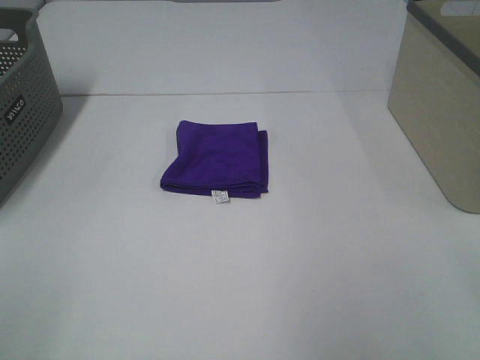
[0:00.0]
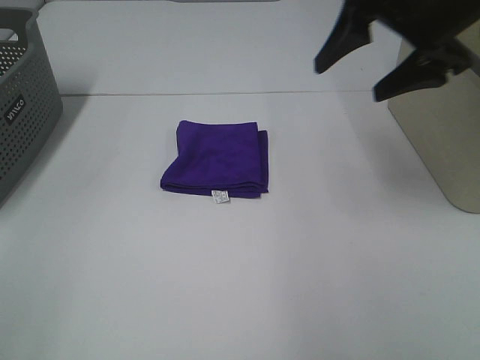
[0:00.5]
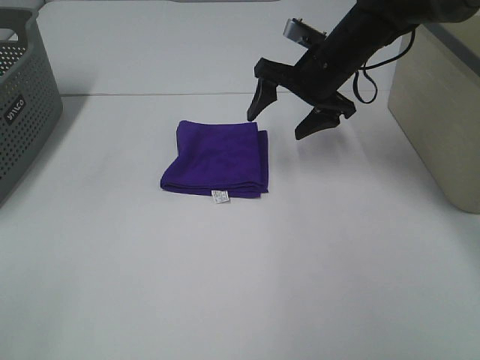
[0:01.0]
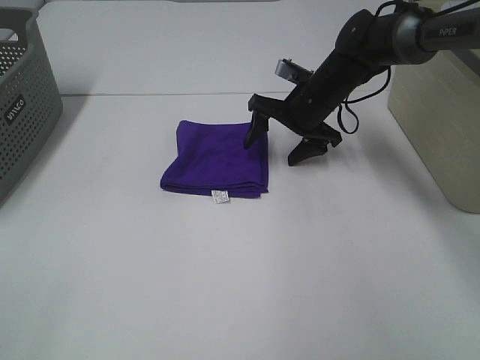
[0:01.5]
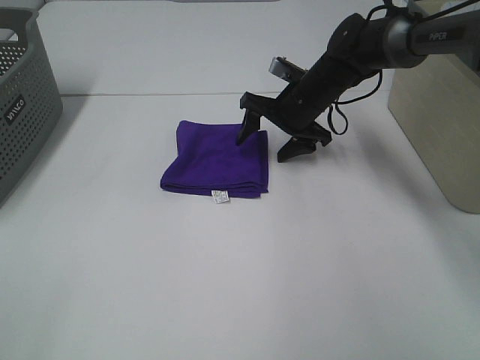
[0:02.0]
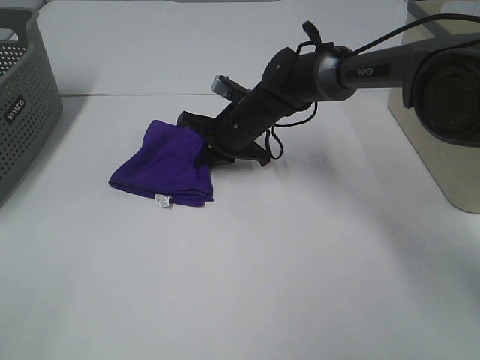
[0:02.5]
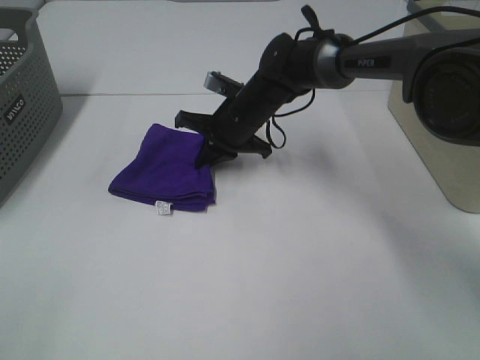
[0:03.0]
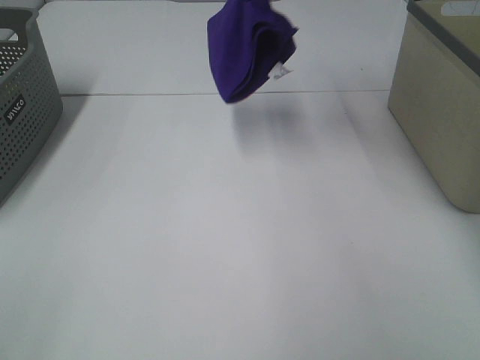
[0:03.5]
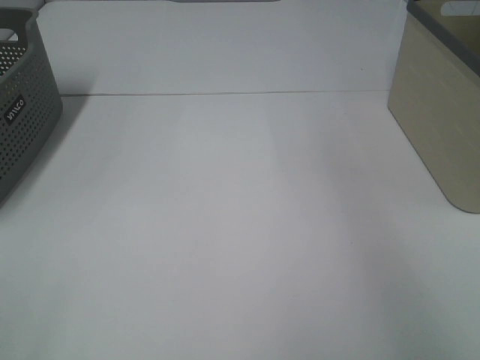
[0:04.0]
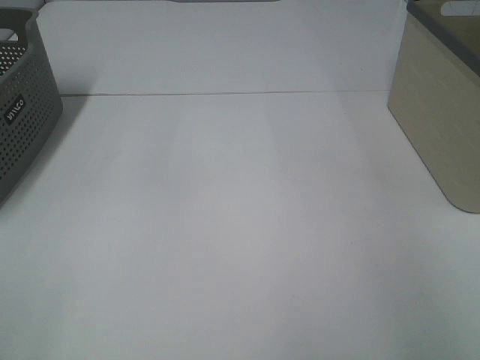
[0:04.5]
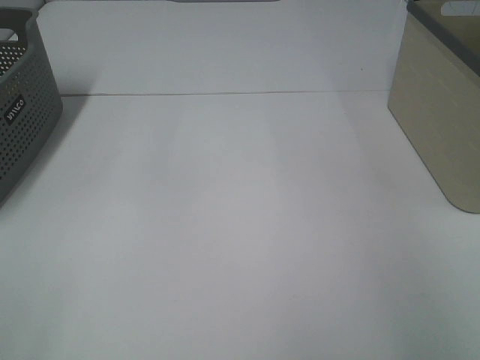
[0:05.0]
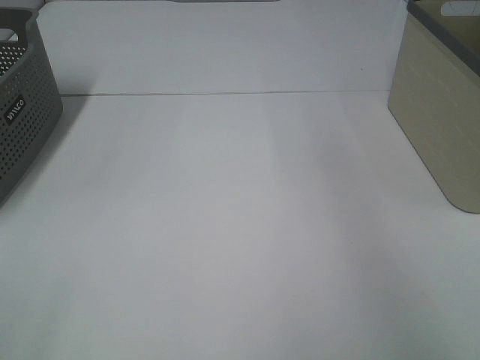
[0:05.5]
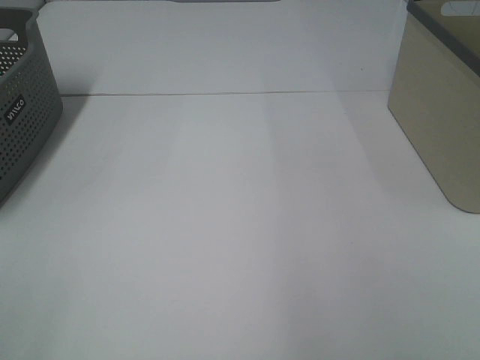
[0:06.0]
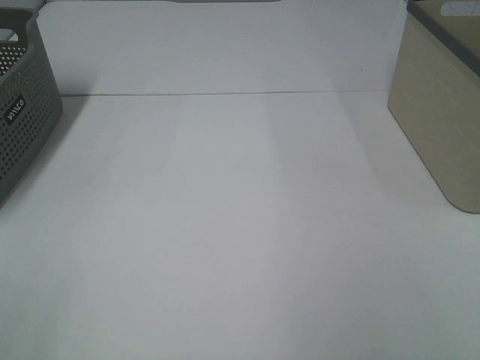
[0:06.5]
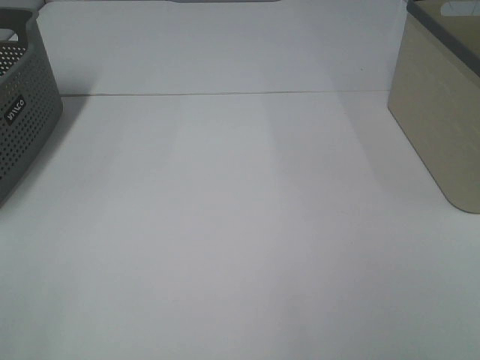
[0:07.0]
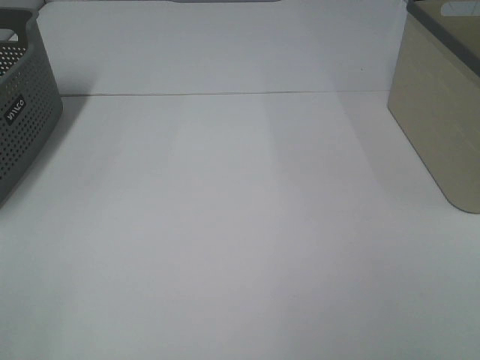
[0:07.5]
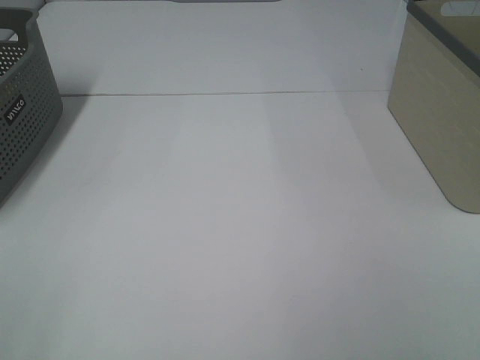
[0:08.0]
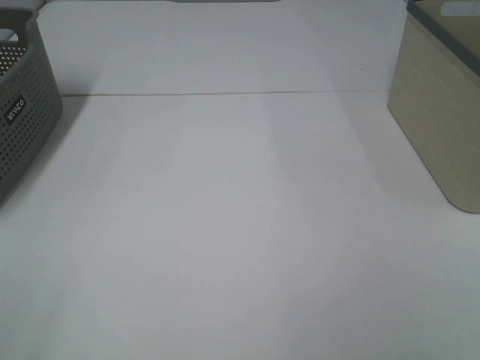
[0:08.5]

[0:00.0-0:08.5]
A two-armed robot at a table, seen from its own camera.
Step, 0.0 to 2.5 s: Right hand: grab the folded purple towel.
Step, 3.0 to 4.5 s: Right hand: place the purple towel in right basket.
0.0 to 2.0 s: The right gripper shifts about 40 cm forward, downward and to the left.
2.0 to 4.0 s: The right gripper goes about 40 cm upward and to the right, and closes up.

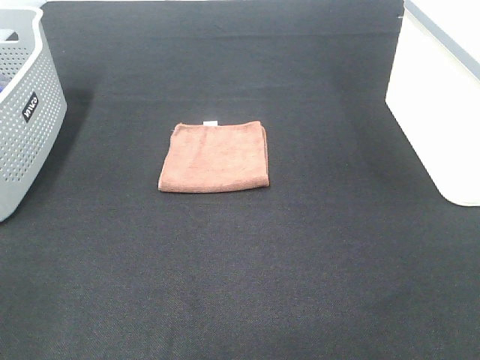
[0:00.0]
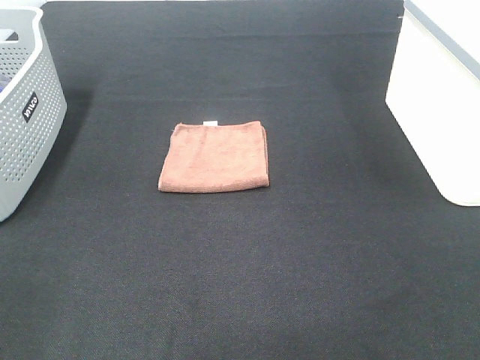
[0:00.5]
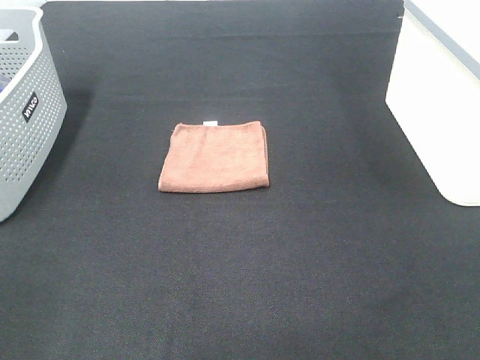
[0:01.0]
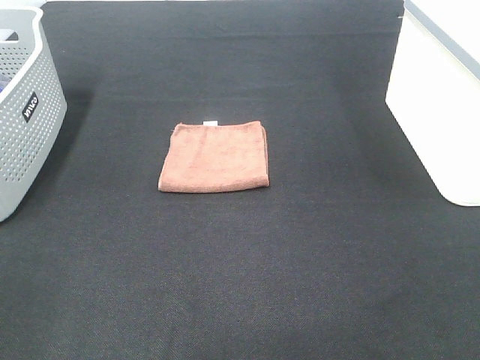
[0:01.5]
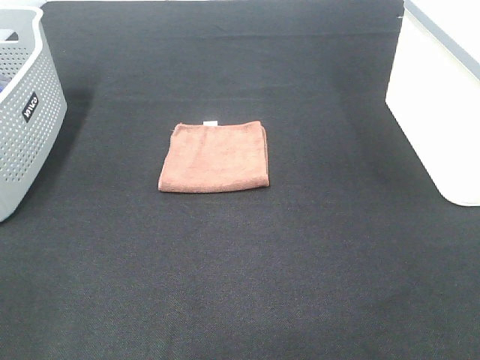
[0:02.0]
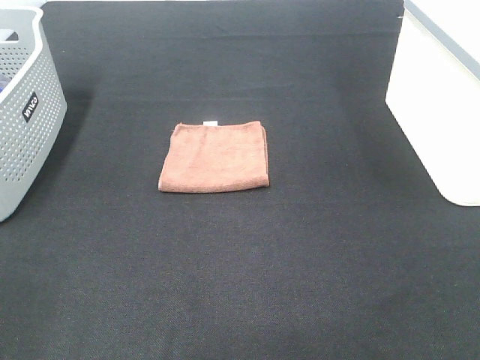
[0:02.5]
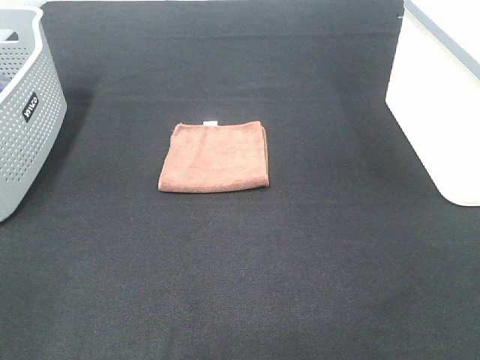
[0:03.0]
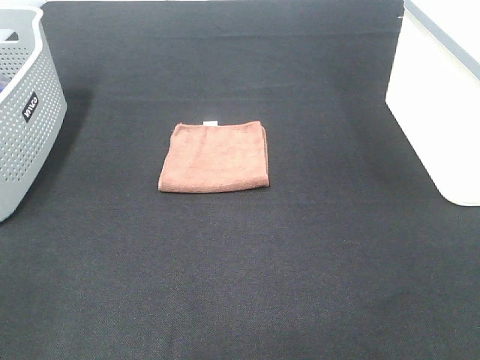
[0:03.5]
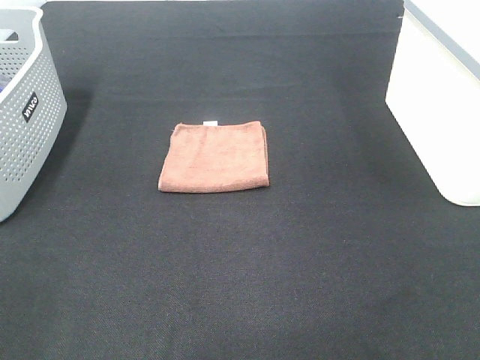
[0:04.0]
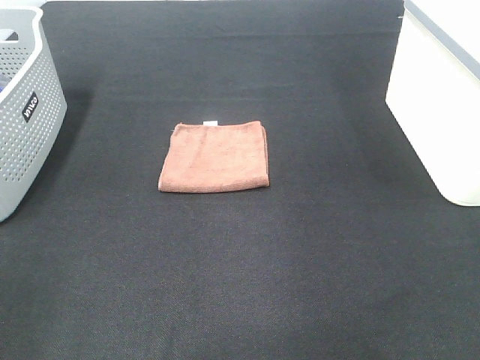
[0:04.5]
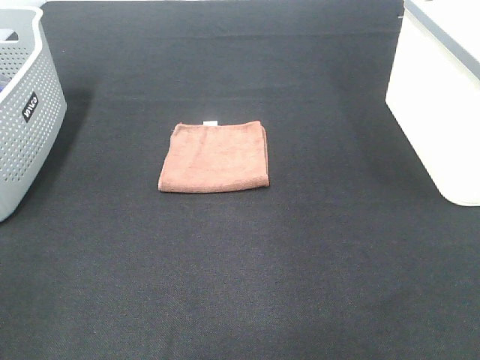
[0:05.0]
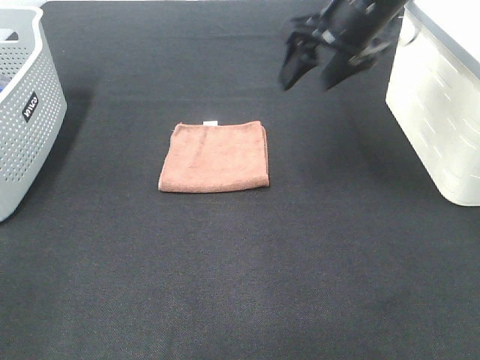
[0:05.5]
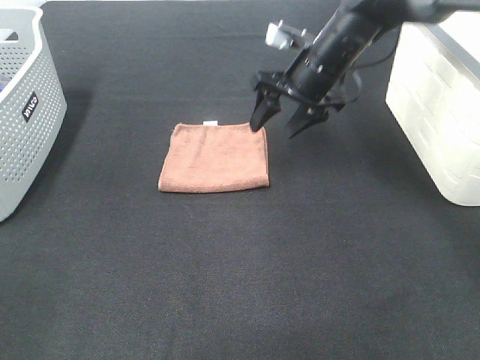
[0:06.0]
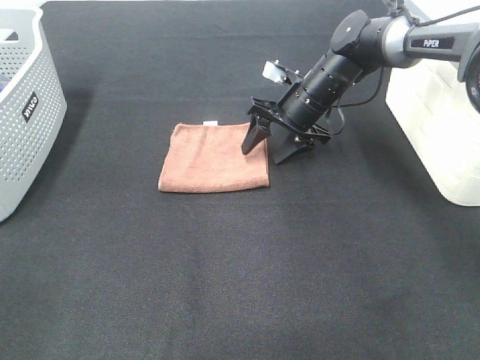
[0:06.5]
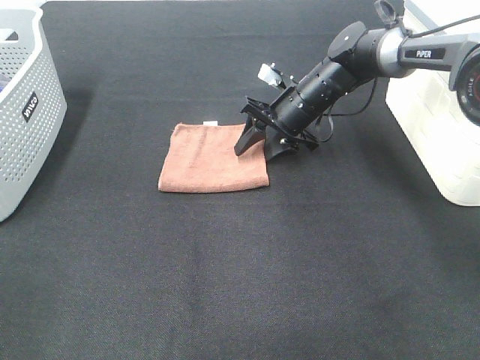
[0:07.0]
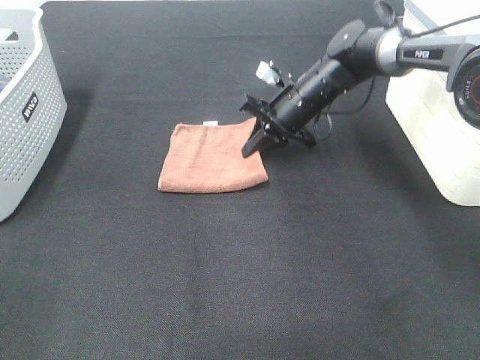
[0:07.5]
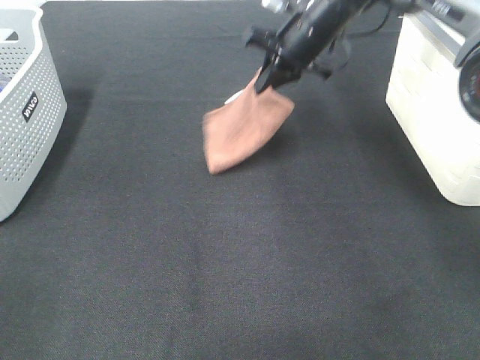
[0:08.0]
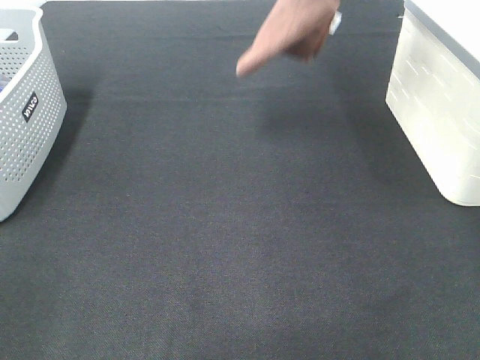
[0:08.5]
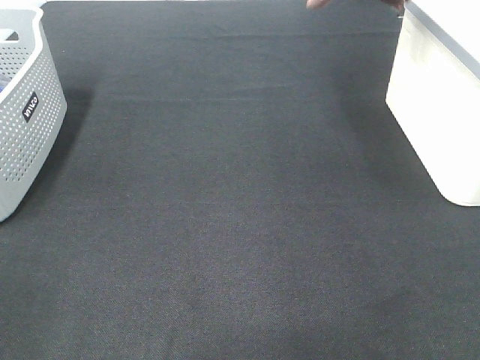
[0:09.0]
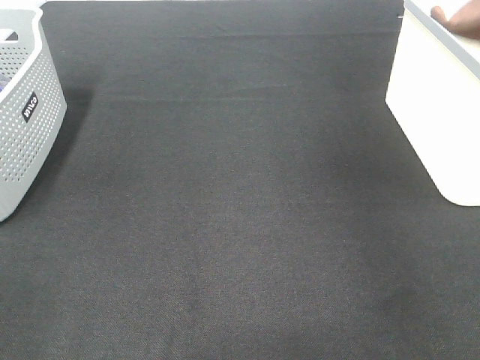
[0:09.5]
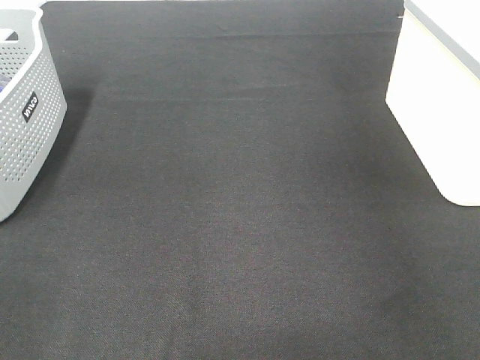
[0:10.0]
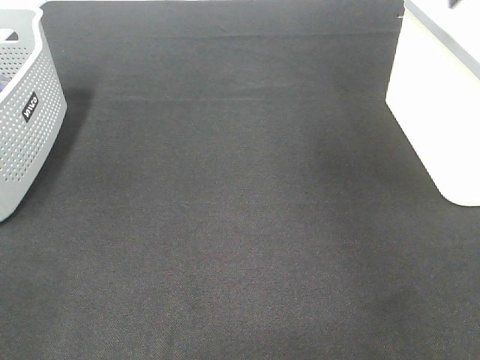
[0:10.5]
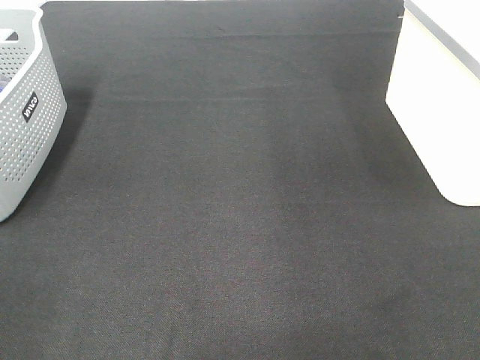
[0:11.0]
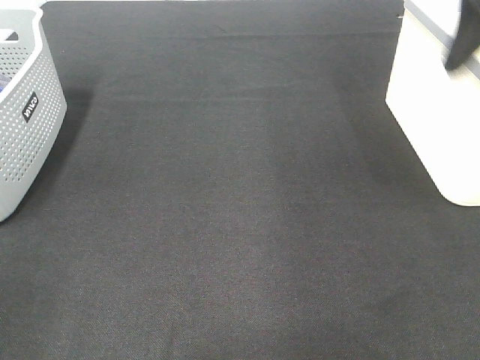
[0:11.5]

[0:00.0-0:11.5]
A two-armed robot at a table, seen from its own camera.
Step, 0.0 to 7.0 s: Right hand: grab the folded brown towel.
Step, 7.5 to 10.5 s: Right hand: place the brown towel in right basket.
0.0 to 2.0 s: Neither gripper changes place.
4.0 to 6.0 s: The right gripper is displaced forward, downward and to the left by roughly 50 cm.
6.0 to 7.5 s: The right gripper travels downward by approximately 5 cm, and closes its fingers.
7.5 to 9.5 s: The right gripper is displaced upward and to the right by approximately 40 cm.
9.5 to 11.5 s: The right gripper heads backward and to the left, covering approximately 20 cm, and opens its fingers.

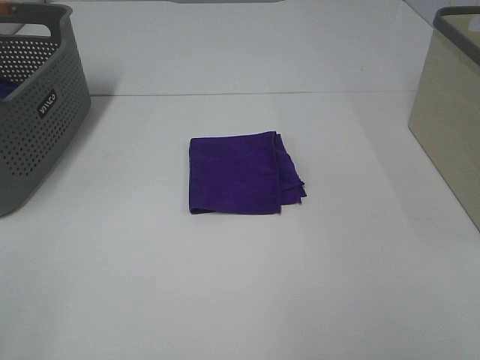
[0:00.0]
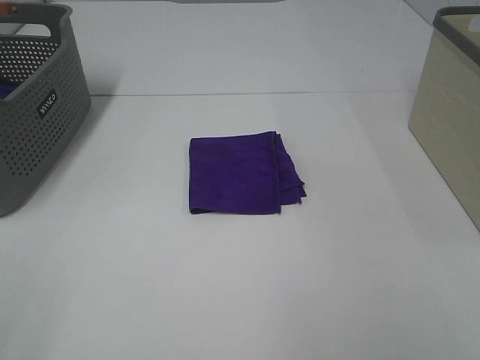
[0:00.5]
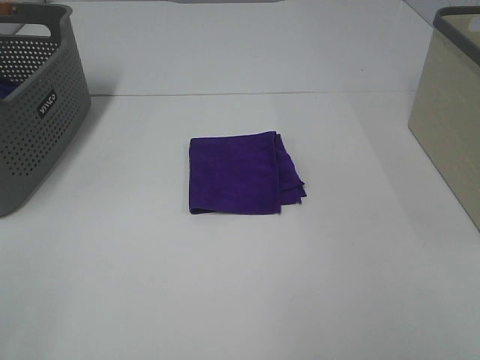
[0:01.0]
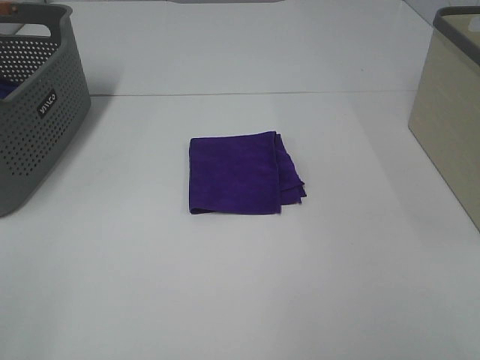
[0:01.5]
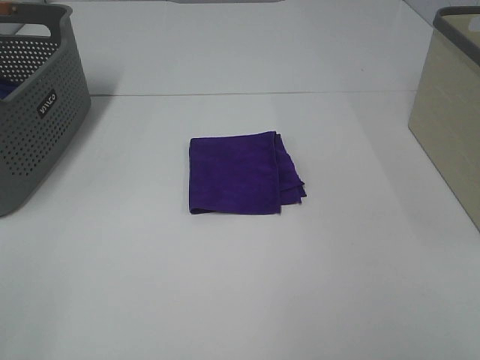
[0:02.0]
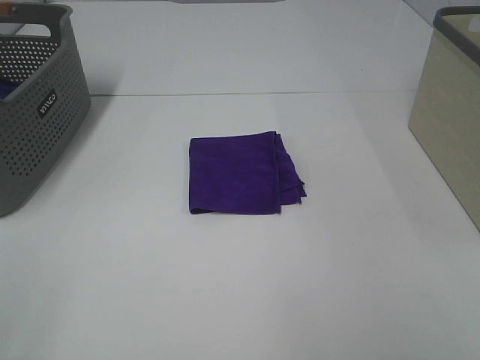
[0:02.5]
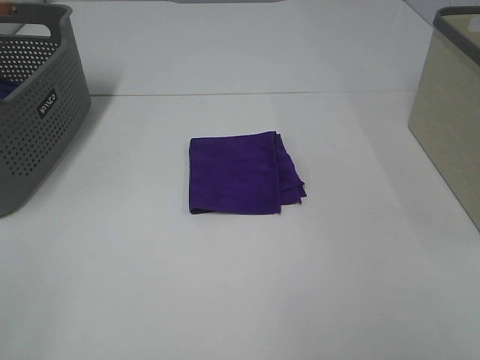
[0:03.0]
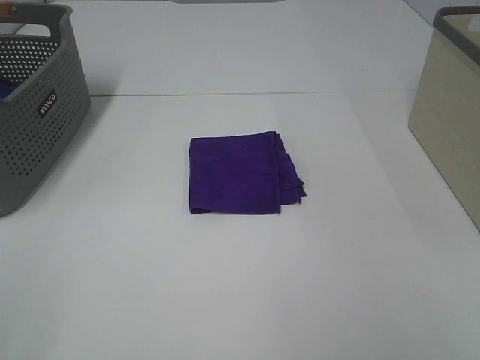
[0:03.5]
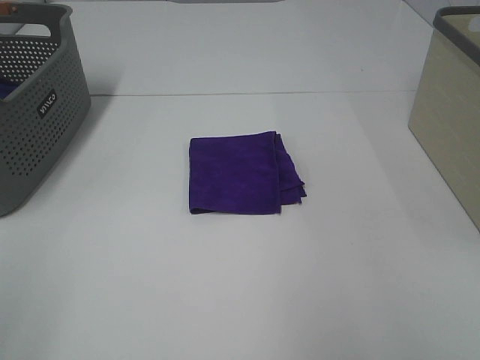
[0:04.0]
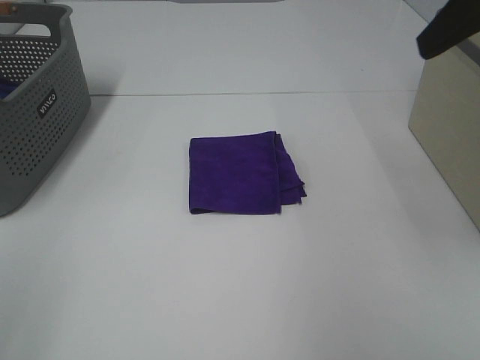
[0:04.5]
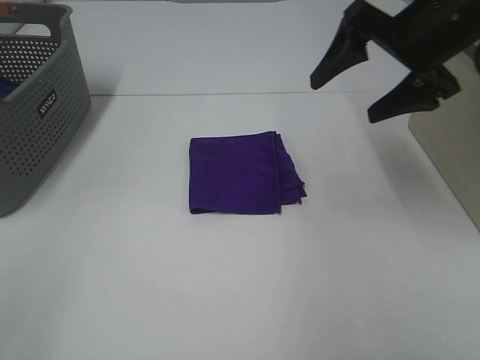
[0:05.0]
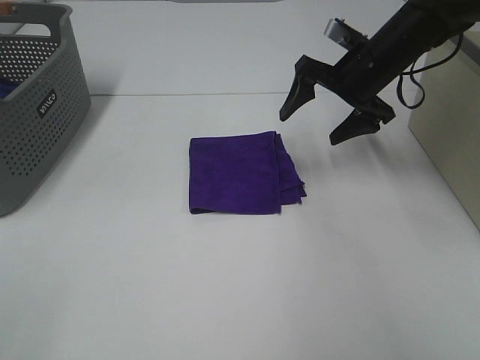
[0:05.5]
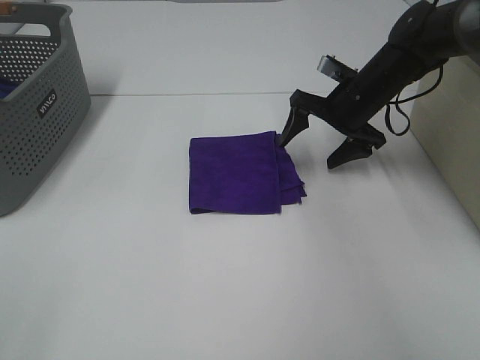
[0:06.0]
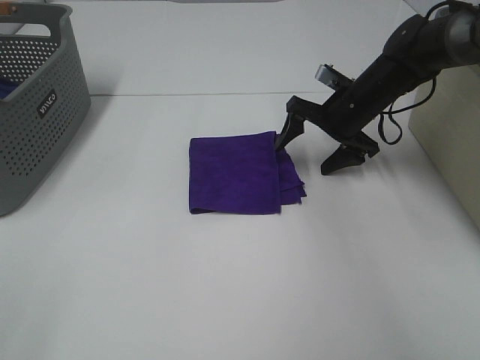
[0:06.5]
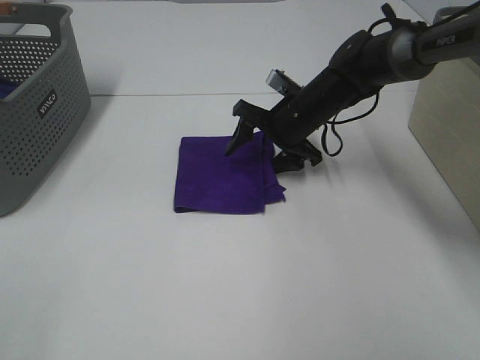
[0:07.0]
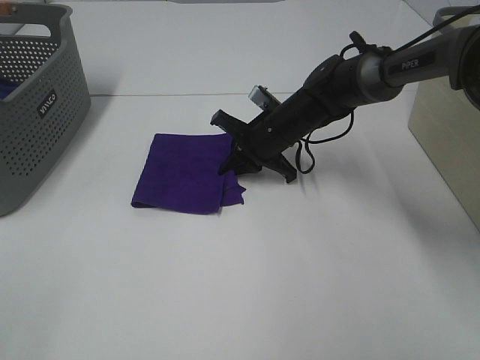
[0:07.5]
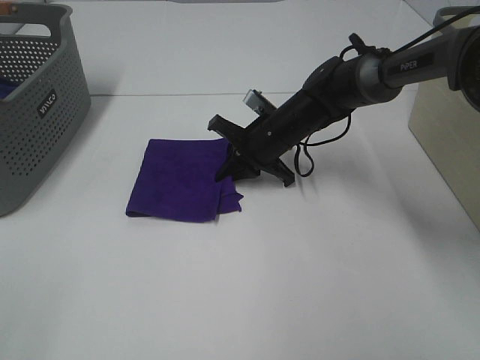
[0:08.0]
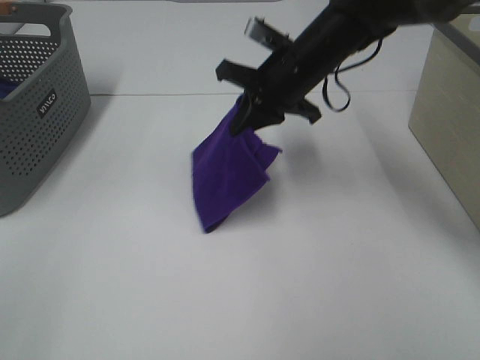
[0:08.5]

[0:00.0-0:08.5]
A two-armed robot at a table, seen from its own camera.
Step, 0.0 to 7.0 s: Right hand: grab the folded purple towel.
0.0 to 2.0 s: Both grippers stay about where they are.
4.0 to 6.5 s: The right gripper moves forward and downward, roughly 40 cm.
6.5 to 8.5 s: The right gripper travels to the left and upward by roughly 15 cm, and closes its fingers.
